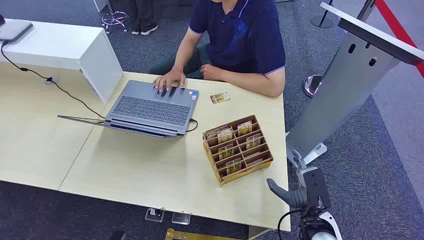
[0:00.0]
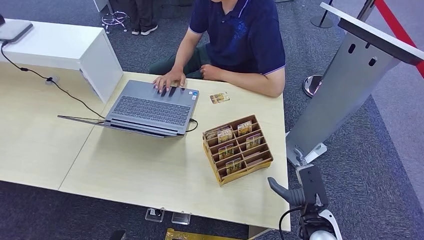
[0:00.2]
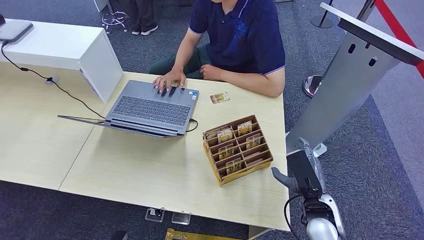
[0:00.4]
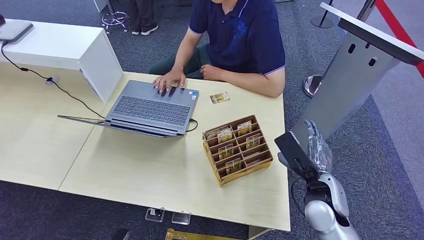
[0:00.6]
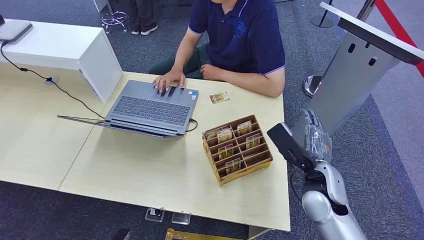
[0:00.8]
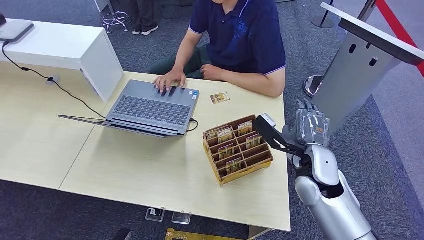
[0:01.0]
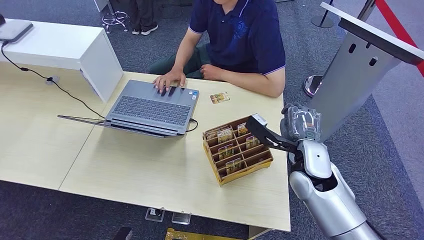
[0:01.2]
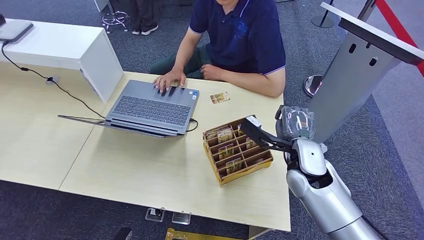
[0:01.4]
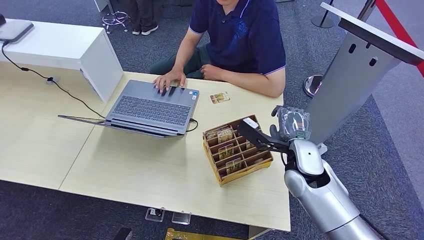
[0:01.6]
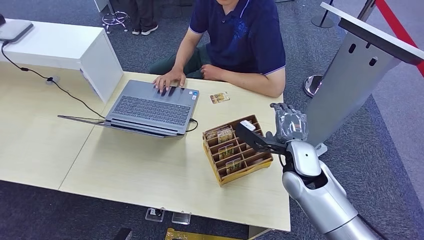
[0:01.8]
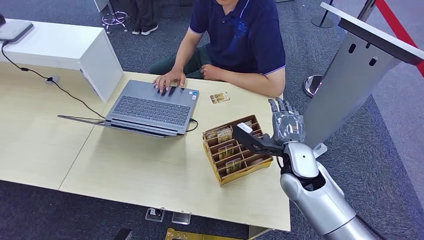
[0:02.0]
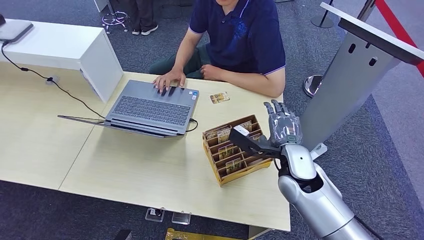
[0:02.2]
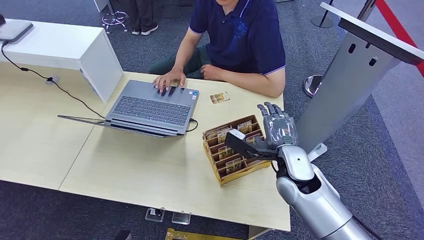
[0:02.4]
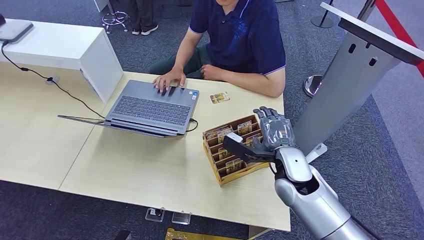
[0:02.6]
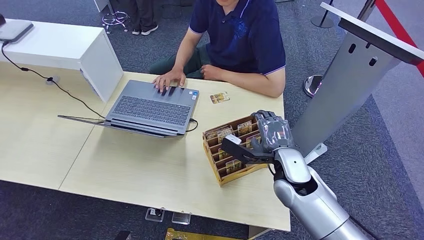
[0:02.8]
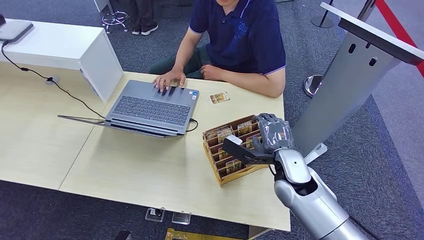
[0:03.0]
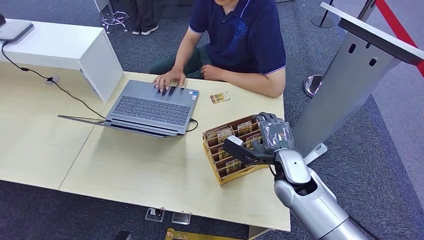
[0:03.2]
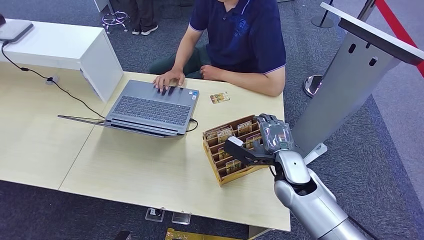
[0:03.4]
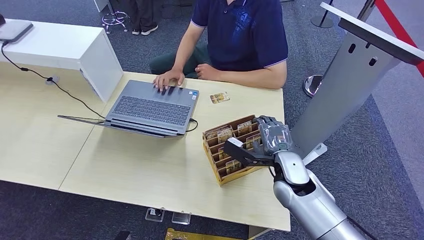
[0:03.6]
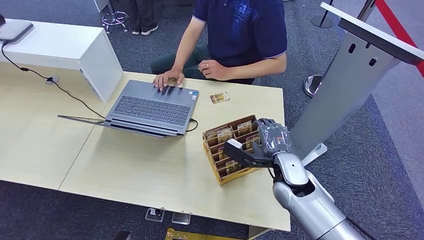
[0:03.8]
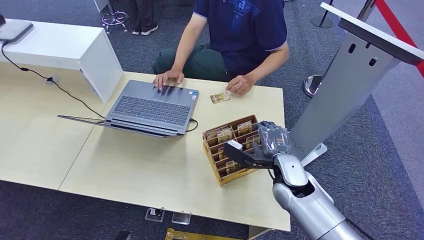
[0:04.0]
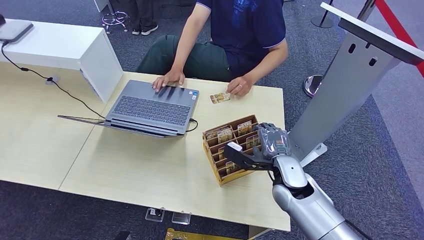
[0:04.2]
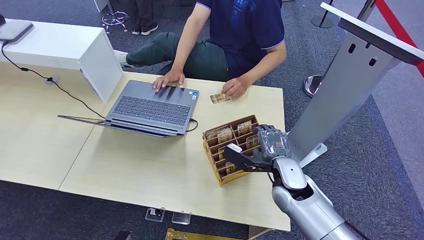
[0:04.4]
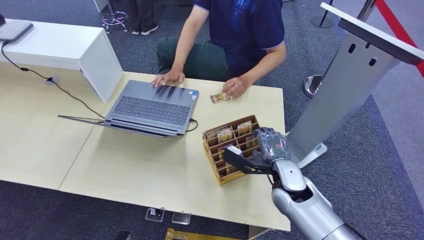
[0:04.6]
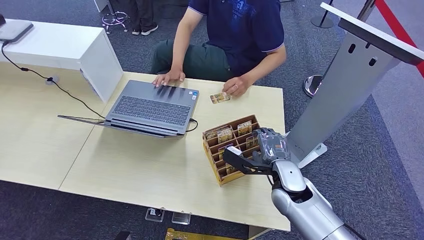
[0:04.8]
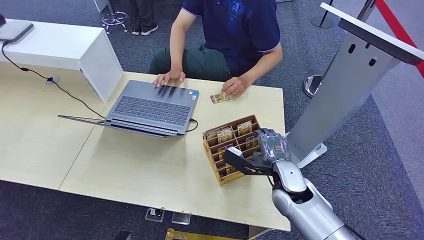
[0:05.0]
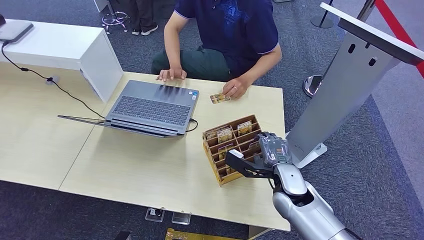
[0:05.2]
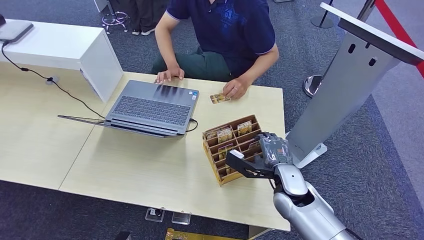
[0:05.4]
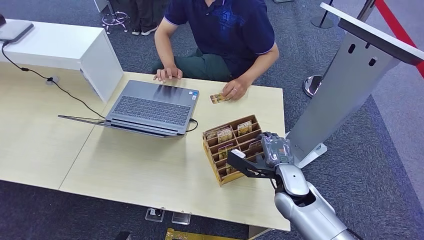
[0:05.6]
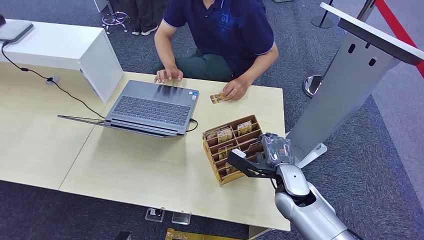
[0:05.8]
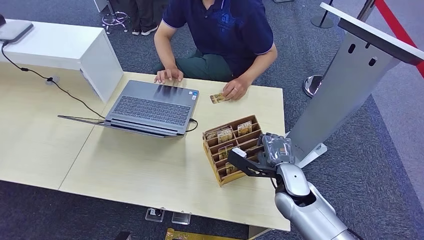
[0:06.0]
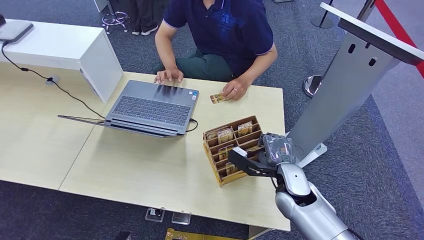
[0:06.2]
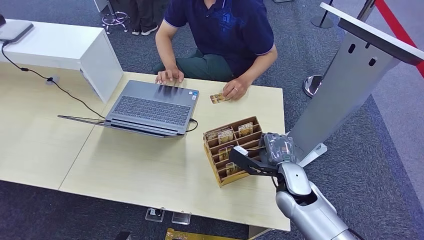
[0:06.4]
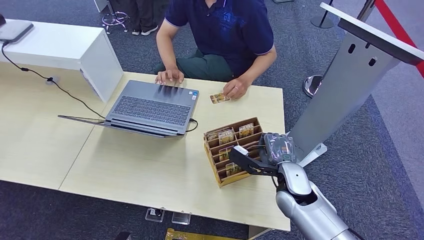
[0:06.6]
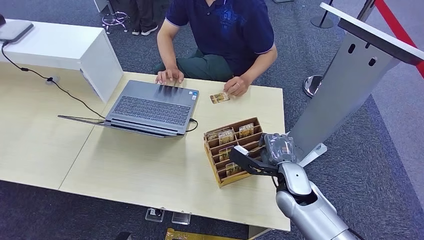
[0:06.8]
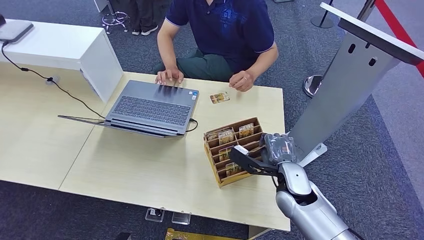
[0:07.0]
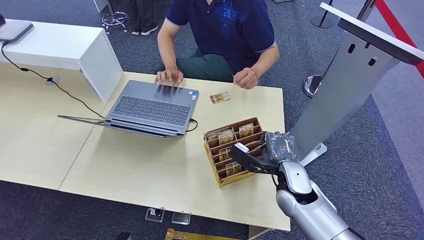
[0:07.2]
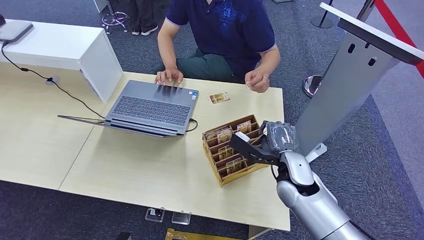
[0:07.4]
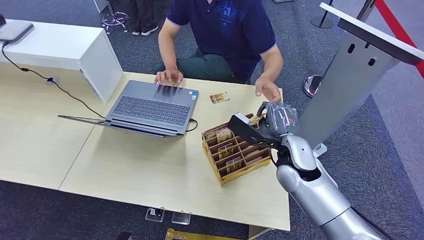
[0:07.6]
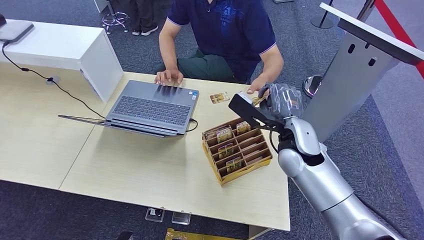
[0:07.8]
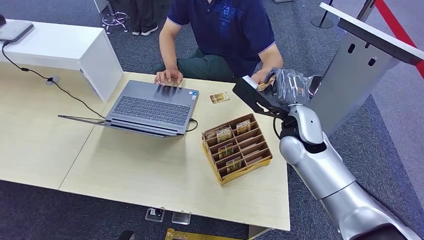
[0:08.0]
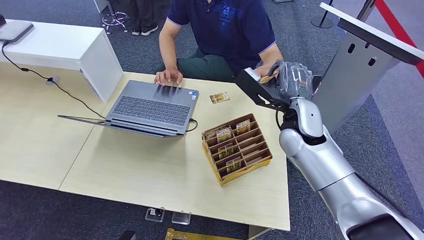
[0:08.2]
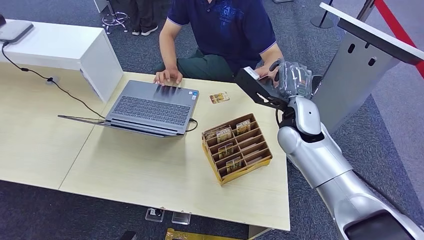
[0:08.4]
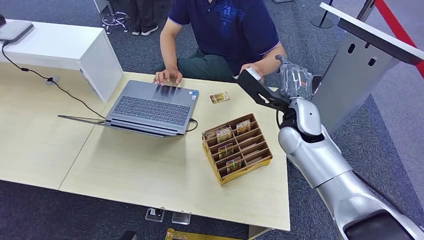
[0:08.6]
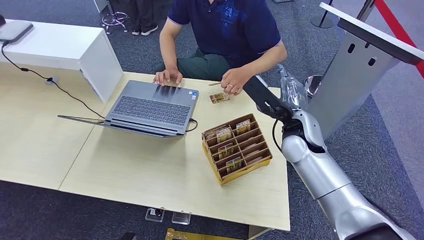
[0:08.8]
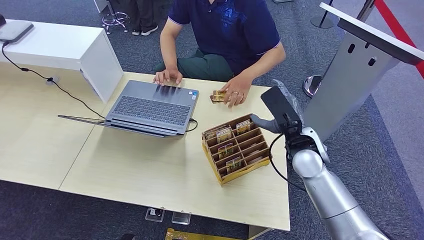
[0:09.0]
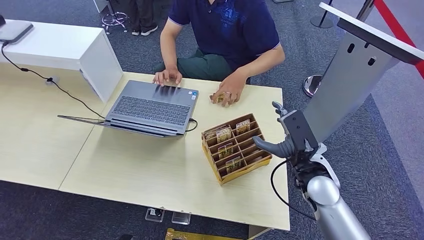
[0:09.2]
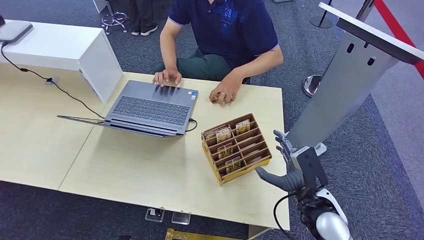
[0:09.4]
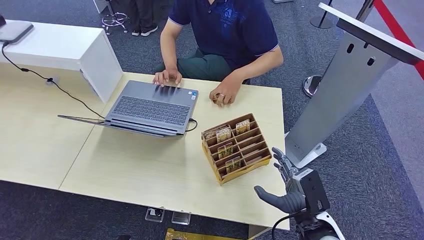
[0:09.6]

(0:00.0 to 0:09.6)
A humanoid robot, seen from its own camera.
Step, 0:00.0 - 0:08.0: Pick up the key card from the card box.
Step, 0:08.4 - 0:09.6: Hand the key card to the target.
0:01.6 - 0:03.2: The hands move only a little.
0:03.2 - 0:04.8: The hands stay close to where they were, moving slightly.
0:04.8 - 0:06.4: Both hands stay put.
0:06.4 - 0:08.0: The right hand heads upward and forward, covering some 15 cm.
0:08.0 - 0:09.6: The right hand shifts roughly 25 cm backward, downward and to the right.

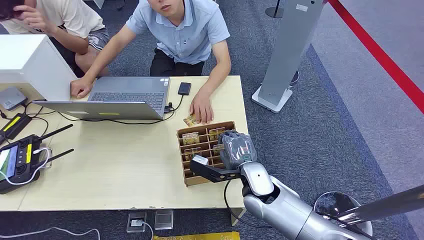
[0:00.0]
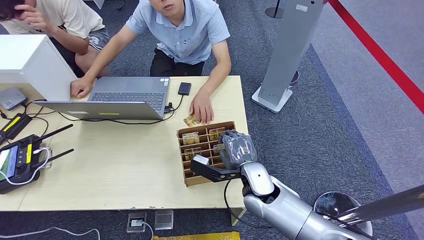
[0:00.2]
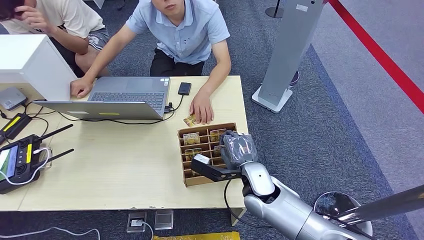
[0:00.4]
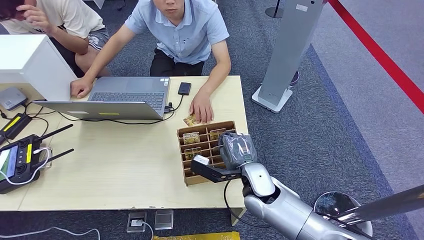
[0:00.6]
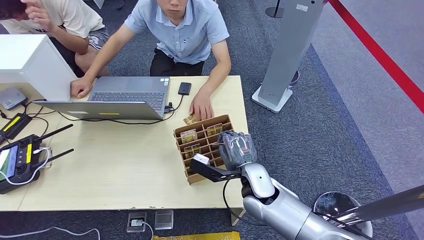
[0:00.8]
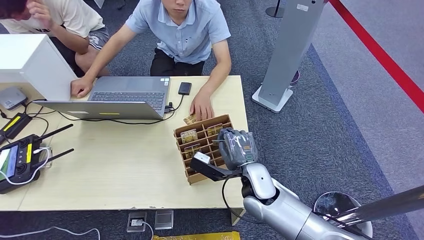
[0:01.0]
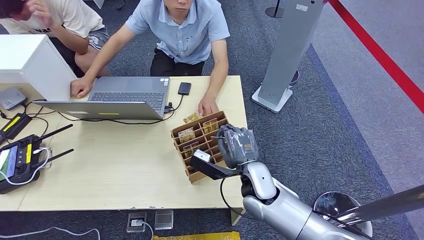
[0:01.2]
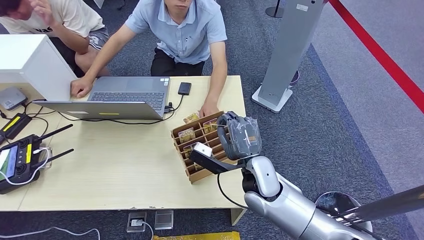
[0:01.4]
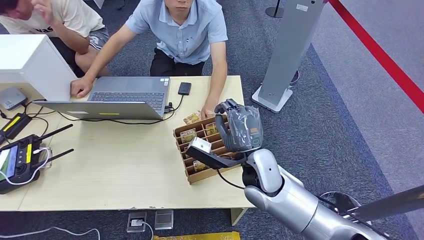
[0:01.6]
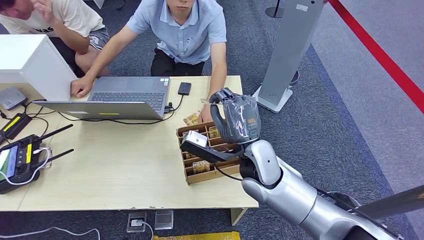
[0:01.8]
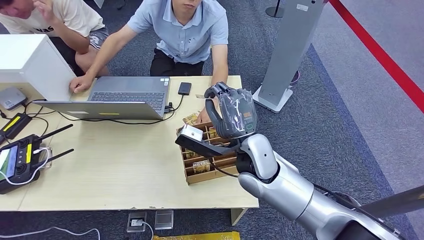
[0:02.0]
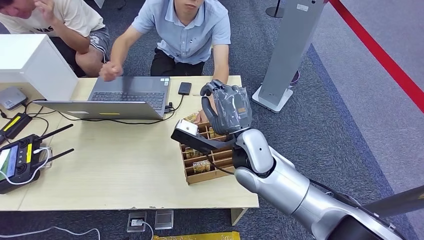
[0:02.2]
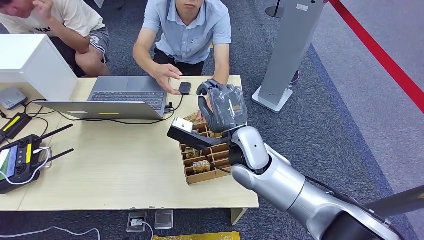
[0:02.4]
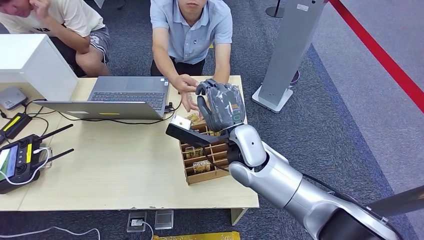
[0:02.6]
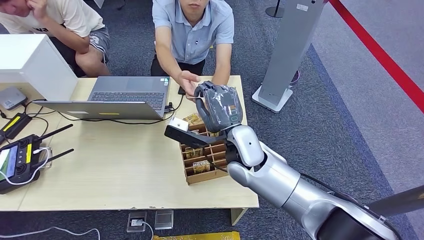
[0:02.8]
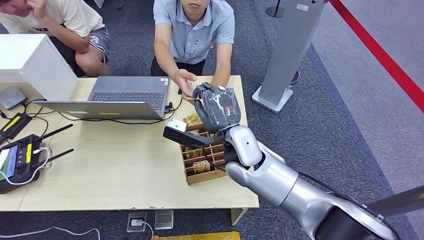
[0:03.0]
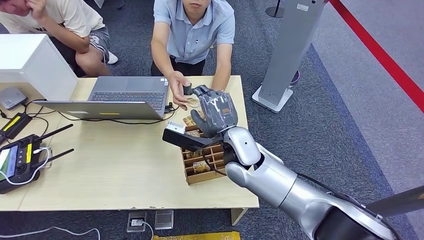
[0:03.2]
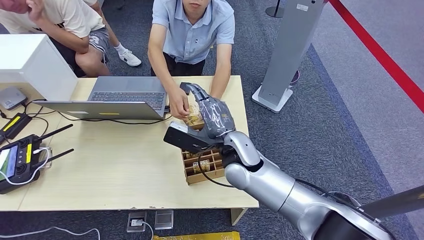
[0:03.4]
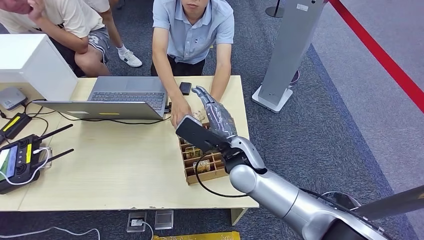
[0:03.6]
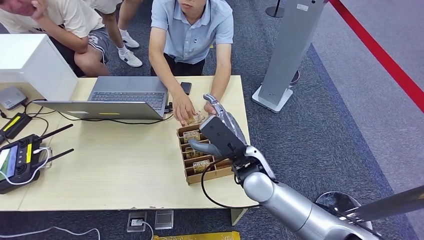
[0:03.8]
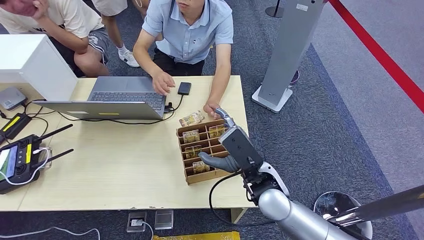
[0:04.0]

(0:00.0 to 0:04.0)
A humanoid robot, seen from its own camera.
Step, 0:00.0 - 0:01.6: Pick up the key card from the card box.
Step, 0:01.8 - 0:04.0: Hand the key card to the target.
0:01.4 - 0:02.6: The right hand moves upward, roughly 5 cm.
0:02.6 - 0:04.0: The right hand shifts roughly 5 cm backward.
